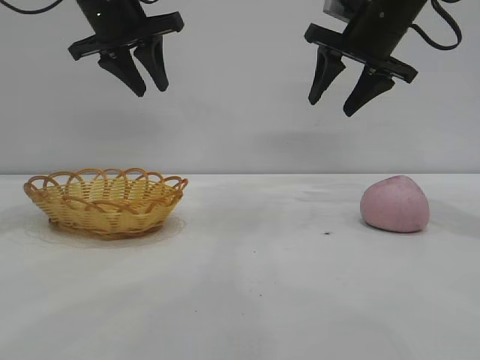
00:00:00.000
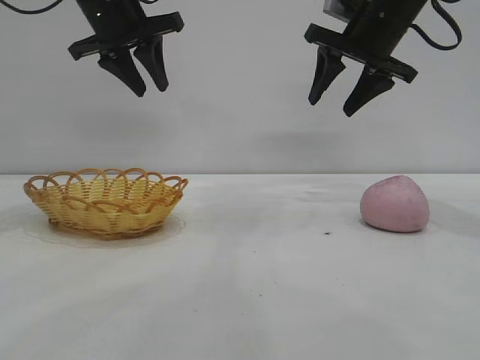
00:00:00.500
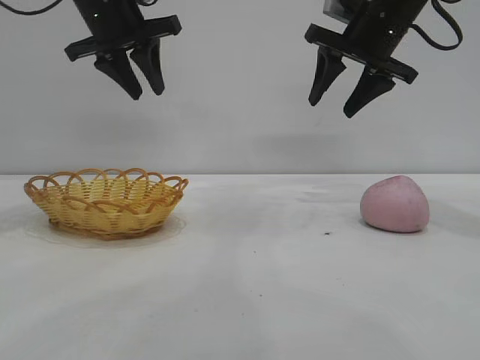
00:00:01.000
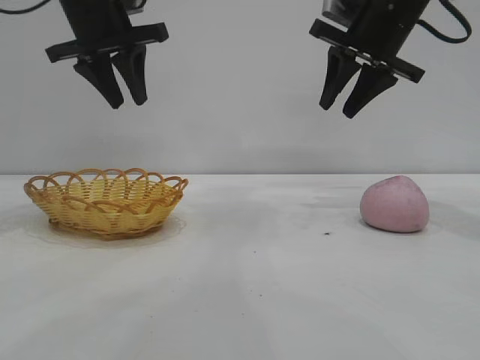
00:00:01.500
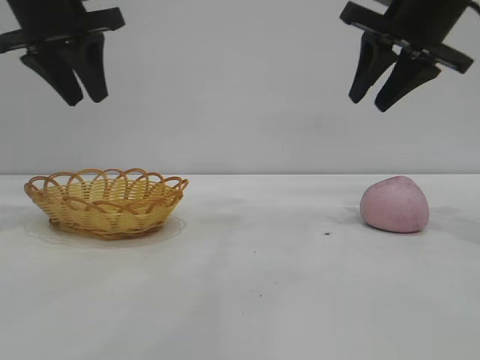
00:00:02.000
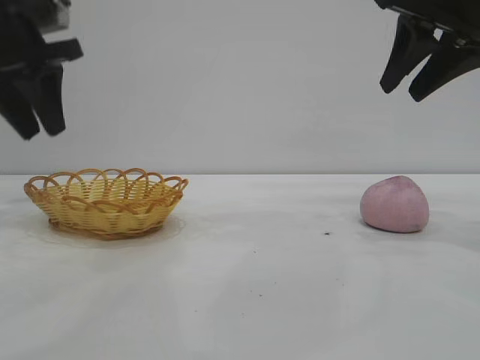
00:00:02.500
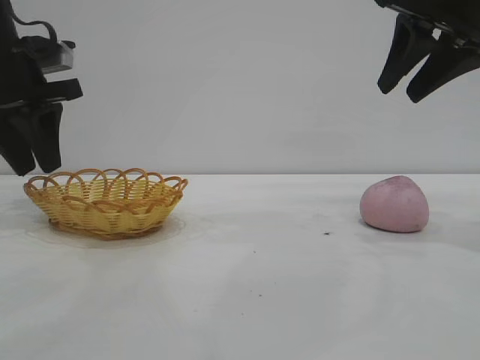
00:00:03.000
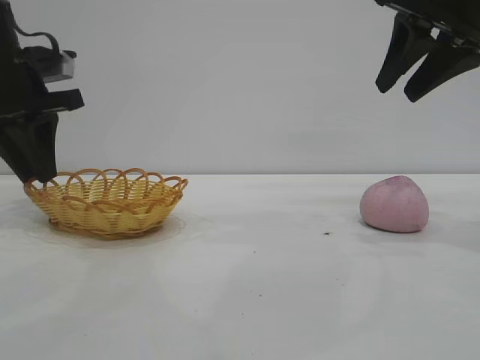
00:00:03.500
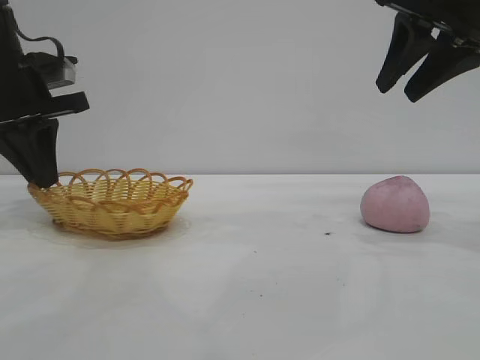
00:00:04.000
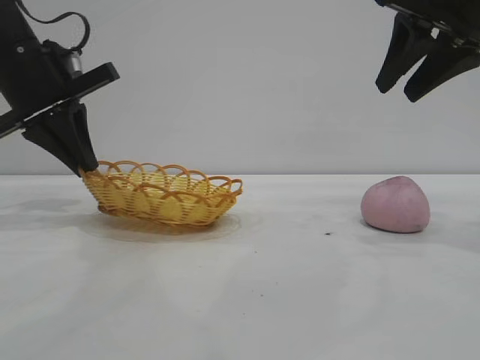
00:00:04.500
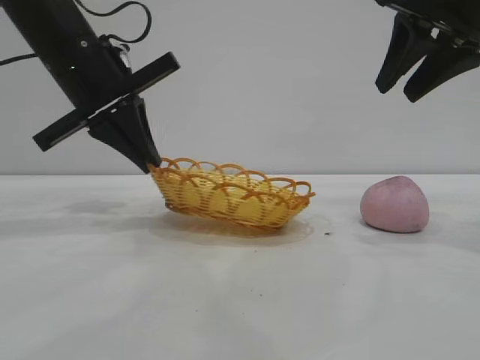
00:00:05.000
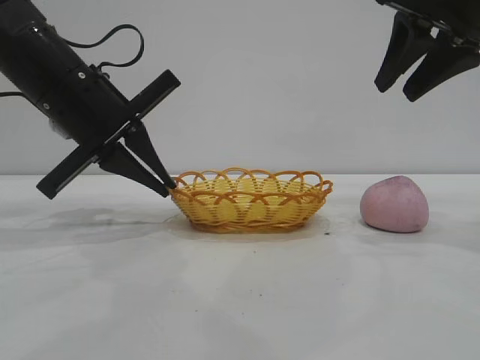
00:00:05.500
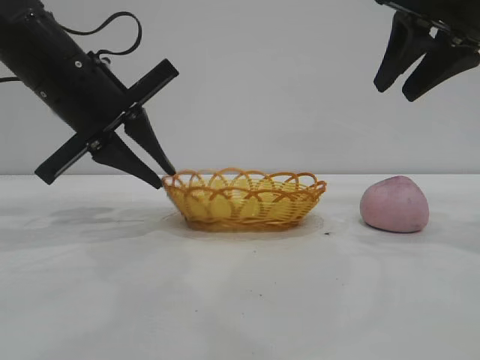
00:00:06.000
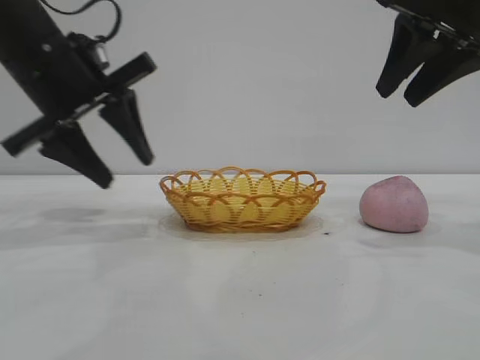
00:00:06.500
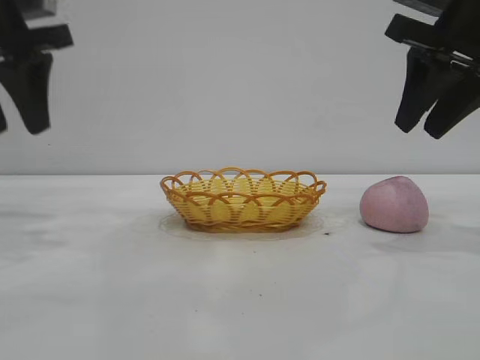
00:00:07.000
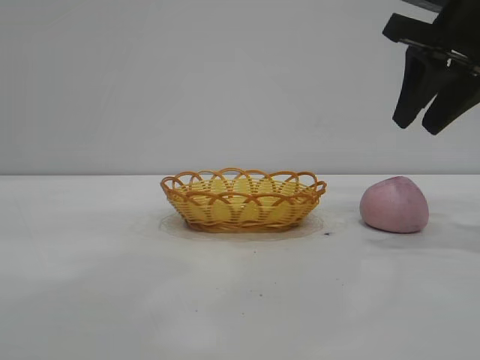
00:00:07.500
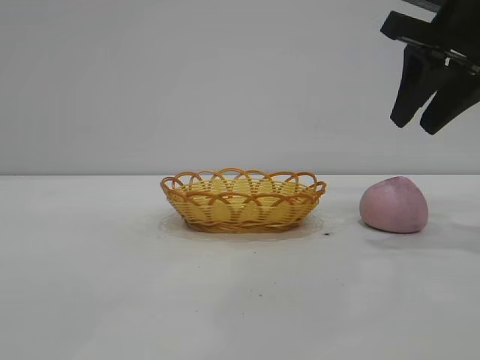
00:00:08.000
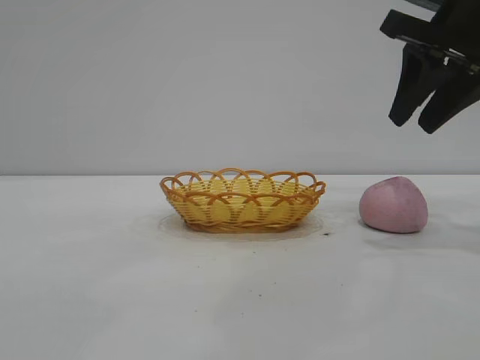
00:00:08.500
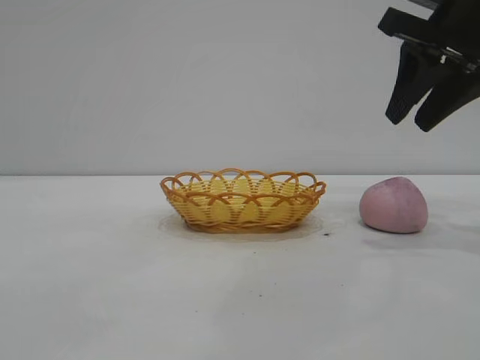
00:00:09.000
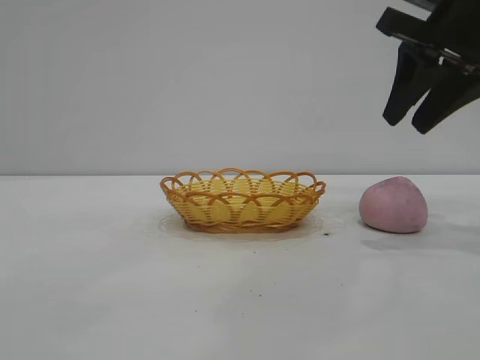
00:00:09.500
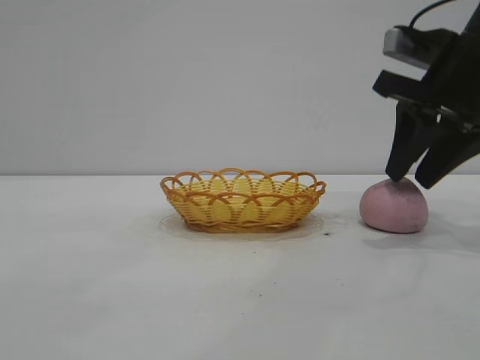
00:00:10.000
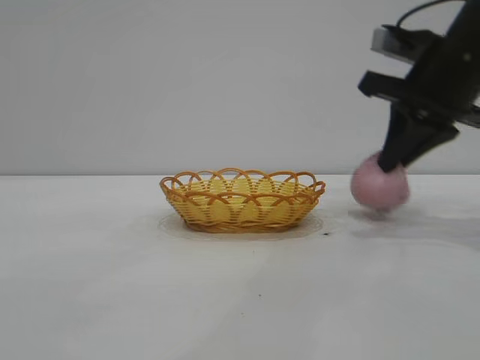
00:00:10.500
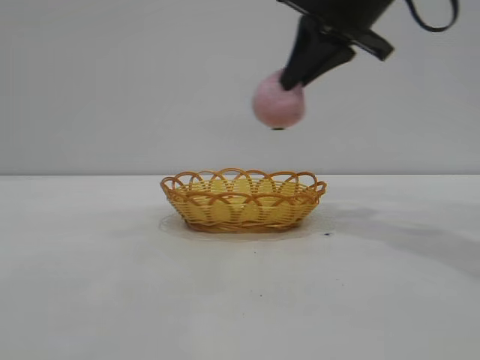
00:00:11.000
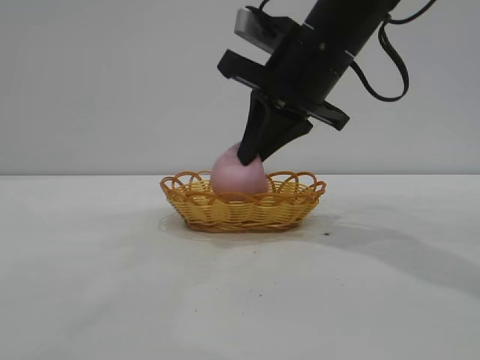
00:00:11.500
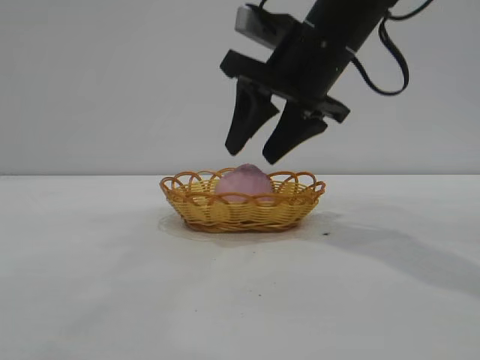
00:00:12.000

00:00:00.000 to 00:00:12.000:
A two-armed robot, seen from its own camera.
Task of the whole recording: pick up the peach and put it into the basket.
Step, 00:00:00.000 to 00:00:06.000: Move the basket to the center of view.
Step, 00:00:06.500 to 00:00:10.500: Pick up the peach.

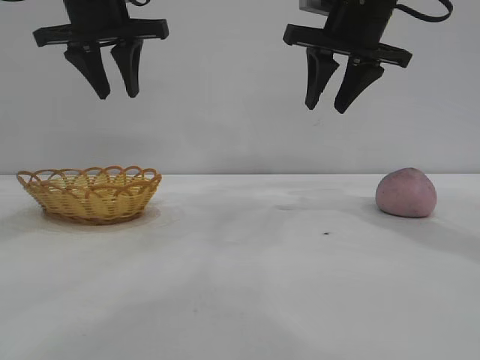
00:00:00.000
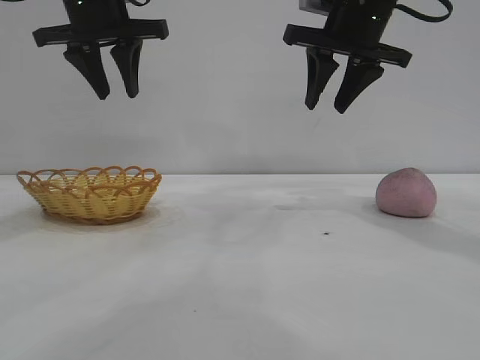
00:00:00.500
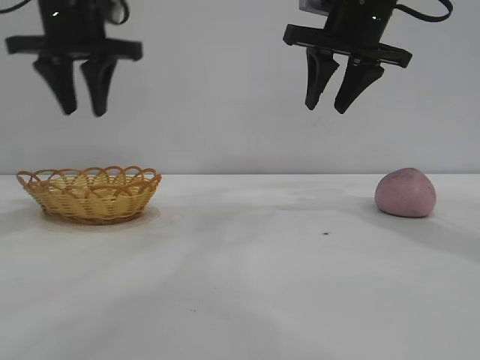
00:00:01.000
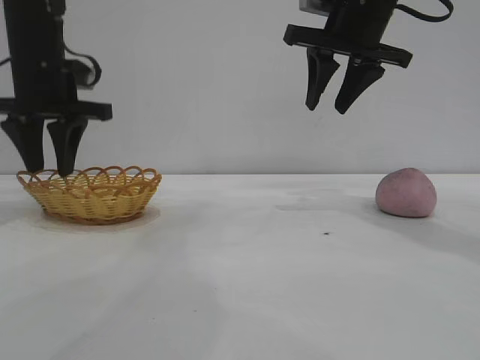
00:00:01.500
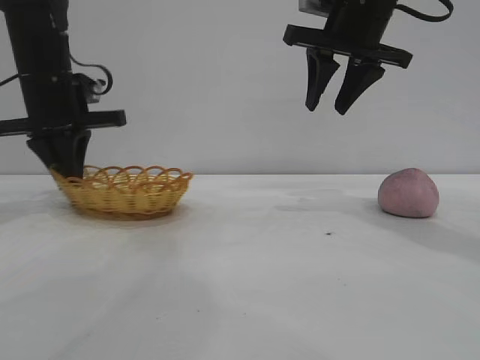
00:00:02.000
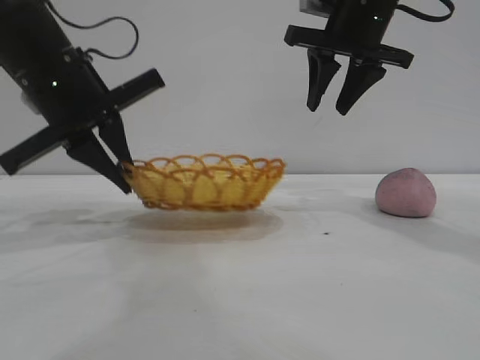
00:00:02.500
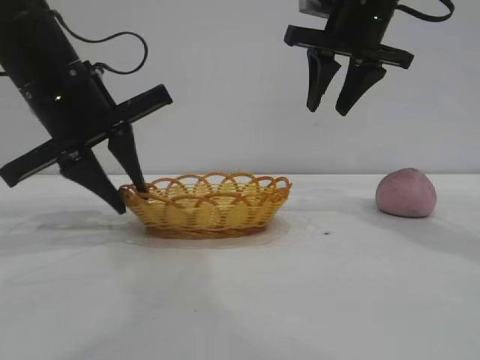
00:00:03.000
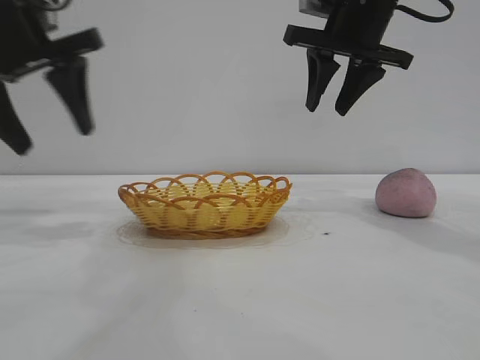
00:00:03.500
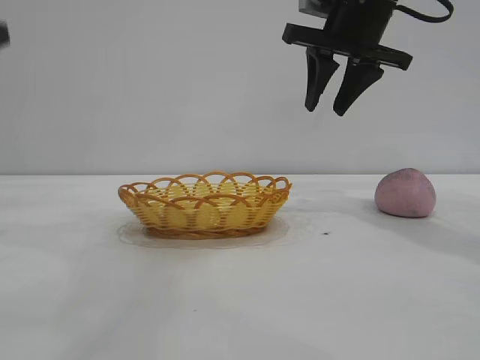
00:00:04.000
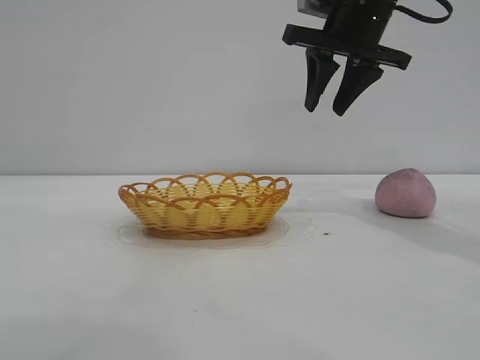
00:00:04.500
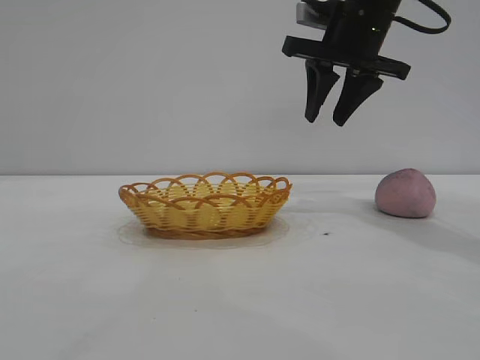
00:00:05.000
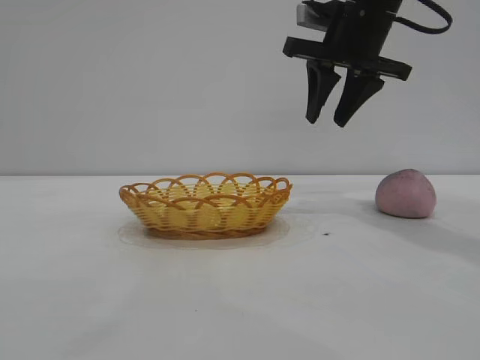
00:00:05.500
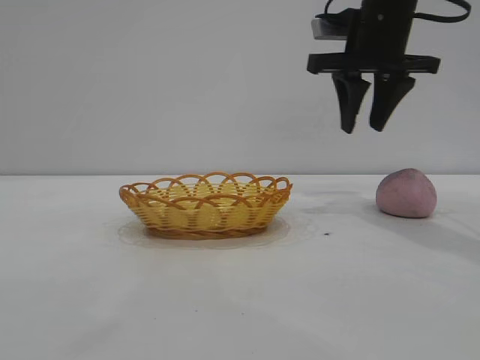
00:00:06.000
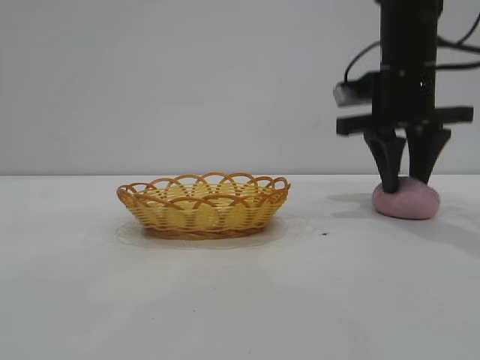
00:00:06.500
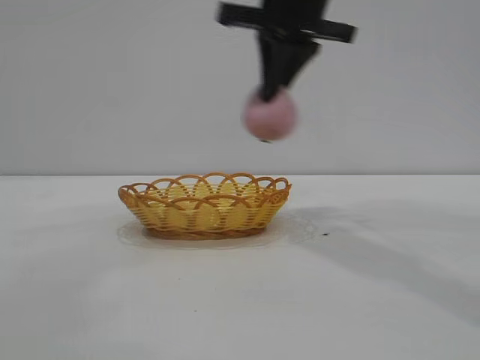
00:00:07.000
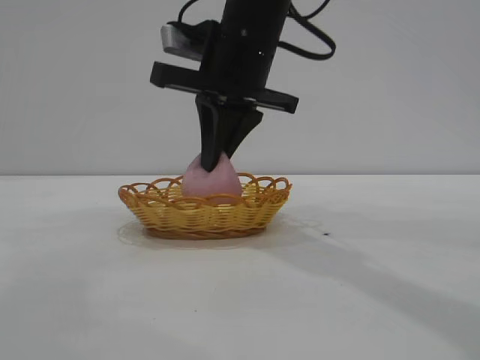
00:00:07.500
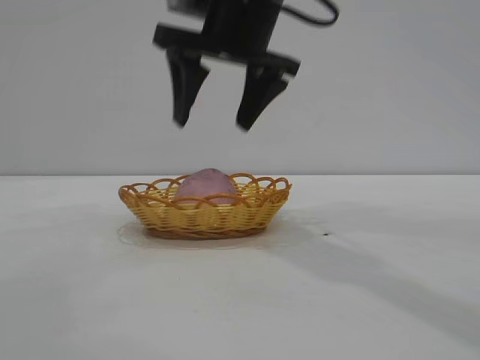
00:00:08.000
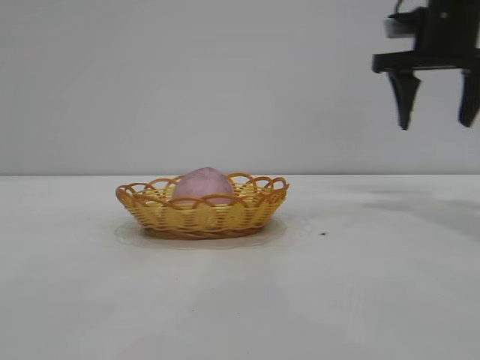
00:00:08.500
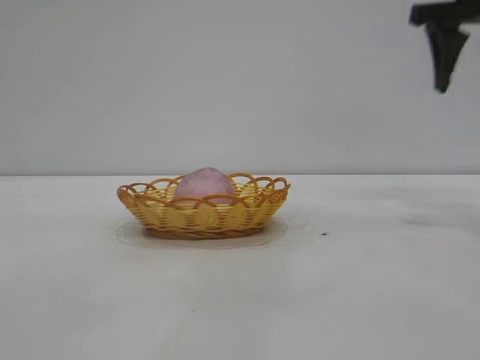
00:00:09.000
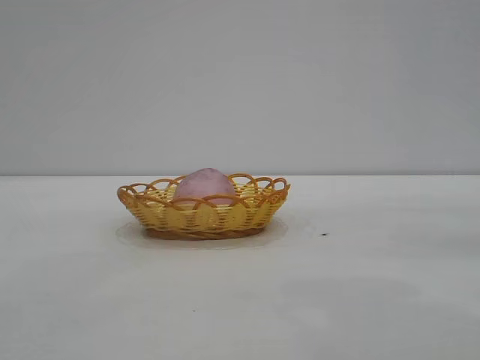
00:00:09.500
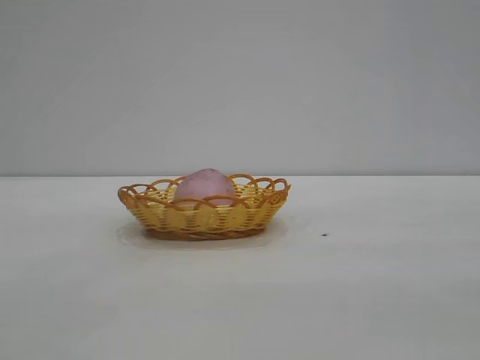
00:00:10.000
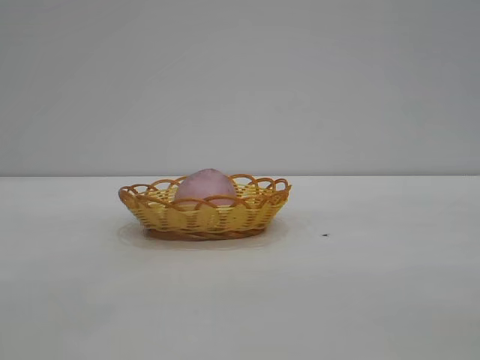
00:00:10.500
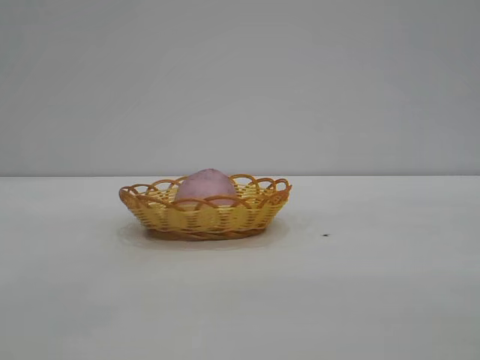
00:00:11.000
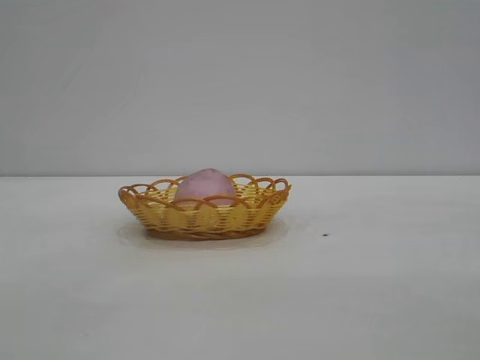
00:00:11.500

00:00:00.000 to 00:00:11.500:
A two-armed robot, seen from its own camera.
Task of the whole recording: pick up the peach and put it into the basket.
Step, 00:00:00.000 to 00:00:03.000: Move the basket to the center of view.
Step, 00:00:04.000 to 00:00:06.500: Pick up the peach.
Step, 00:00:07.000 to 00:00:08.000: place the peach into the basket.

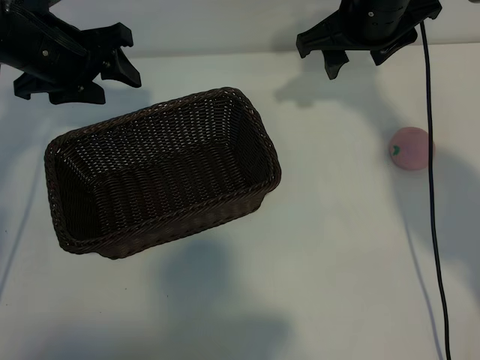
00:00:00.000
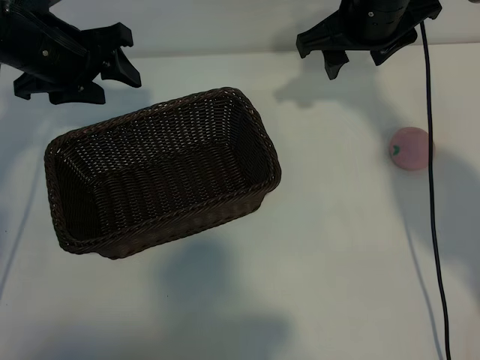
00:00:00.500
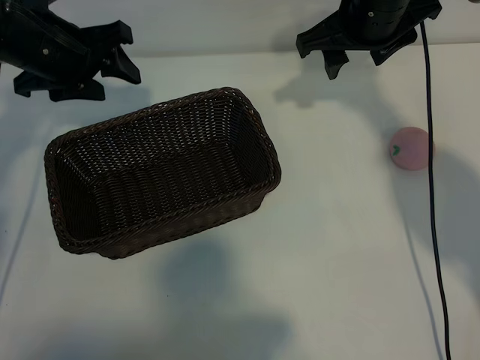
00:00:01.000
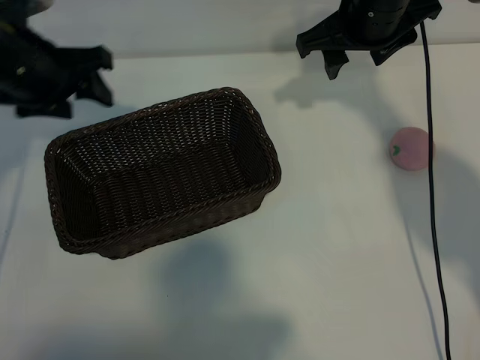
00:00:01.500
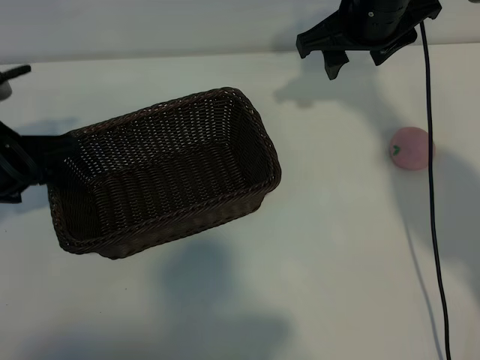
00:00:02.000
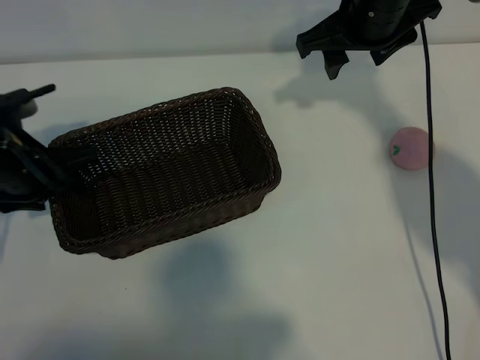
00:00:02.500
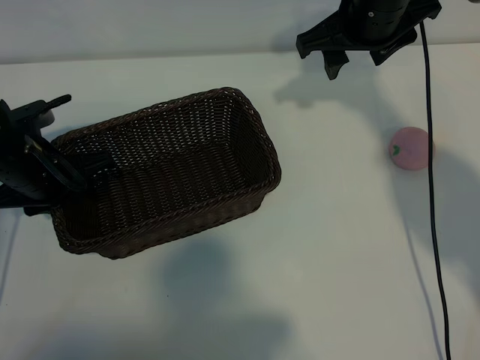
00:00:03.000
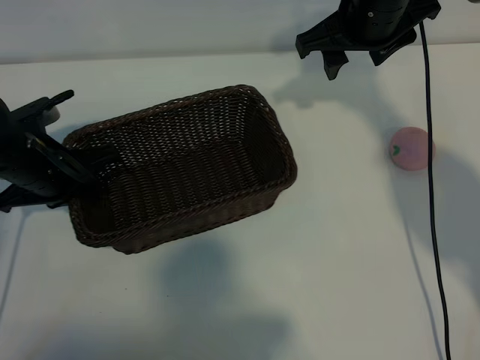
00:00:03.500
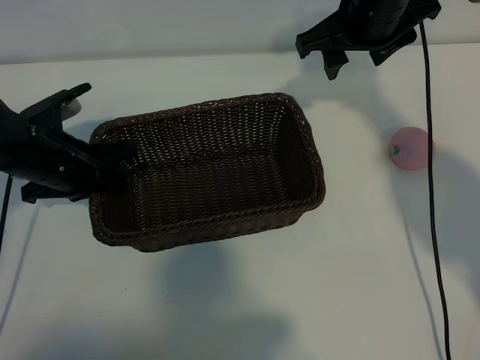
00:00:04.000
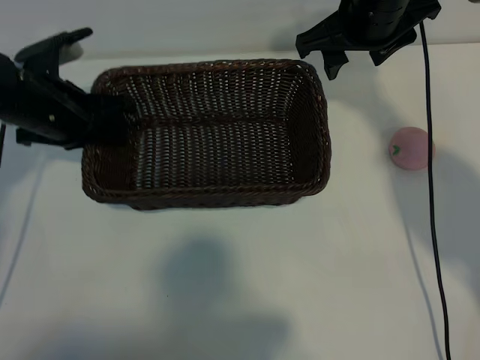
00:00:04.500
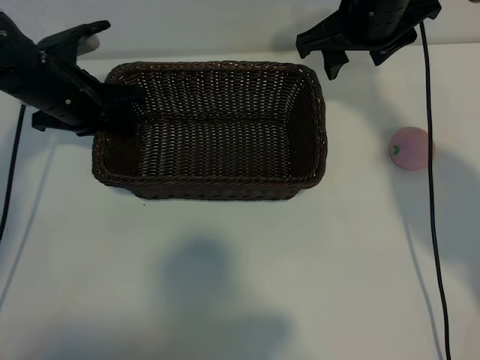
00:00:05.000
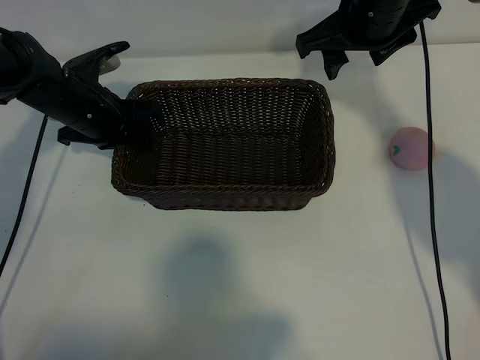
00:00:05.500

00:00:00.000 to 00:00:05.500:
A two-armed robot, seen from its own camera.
Task of the whole recording: pick up the peach and put it into the basket.
Step, 00:00:01.000 to 00:00:03.000: Grasp the basket with left gripper.
